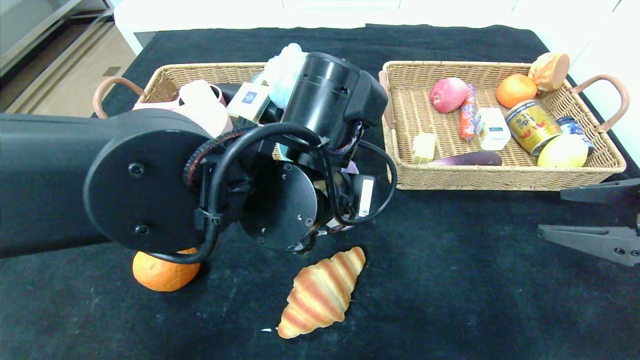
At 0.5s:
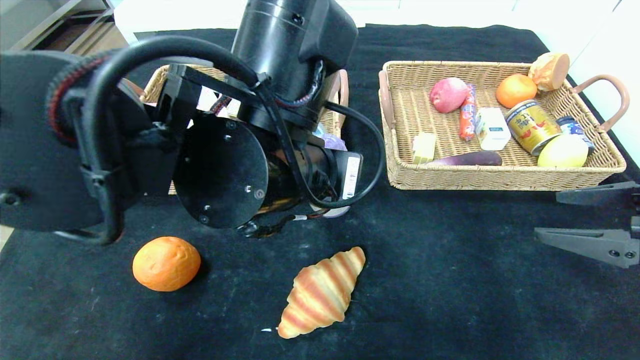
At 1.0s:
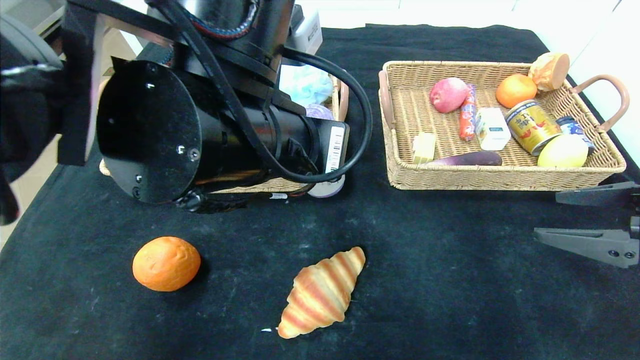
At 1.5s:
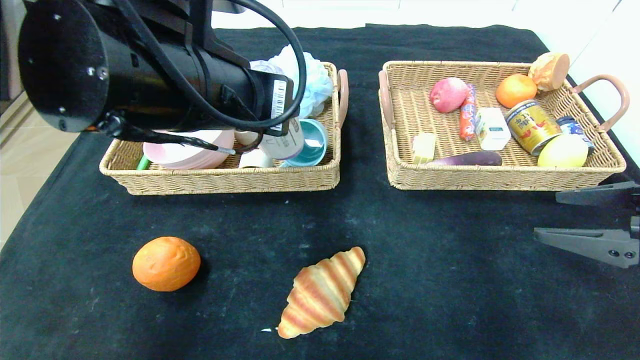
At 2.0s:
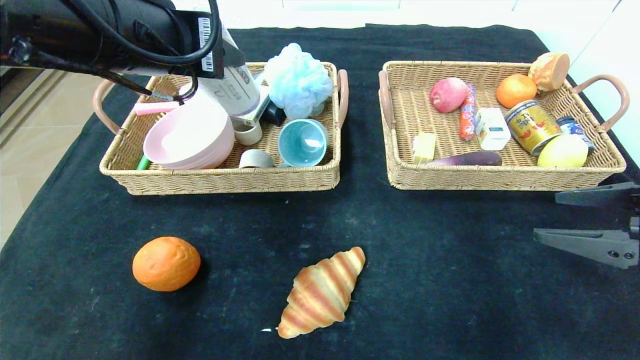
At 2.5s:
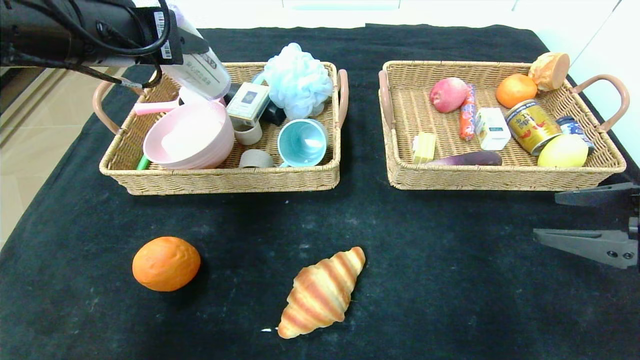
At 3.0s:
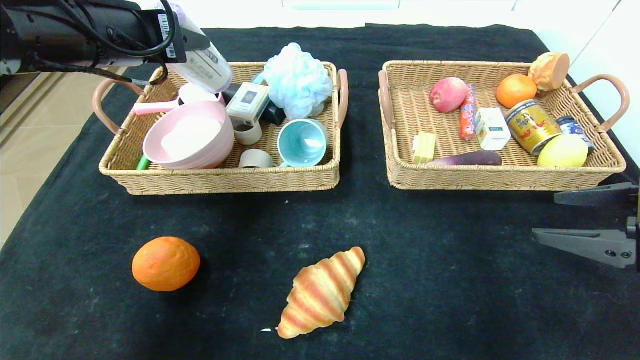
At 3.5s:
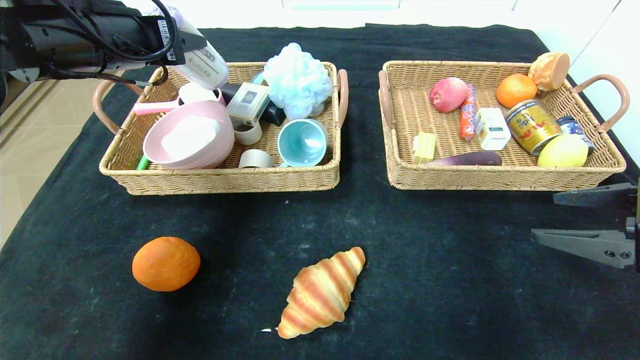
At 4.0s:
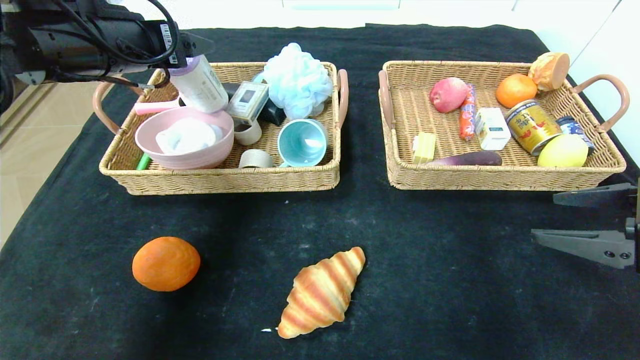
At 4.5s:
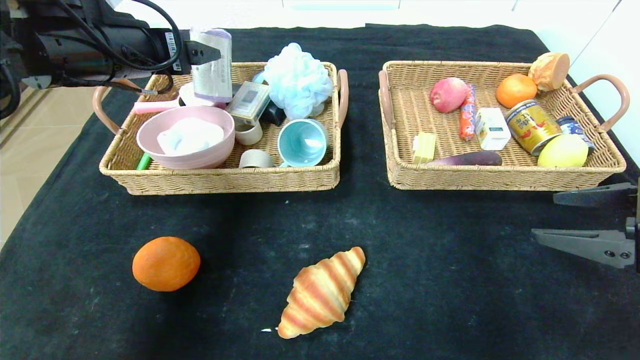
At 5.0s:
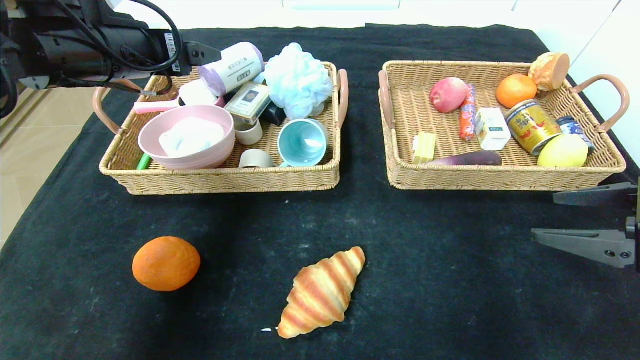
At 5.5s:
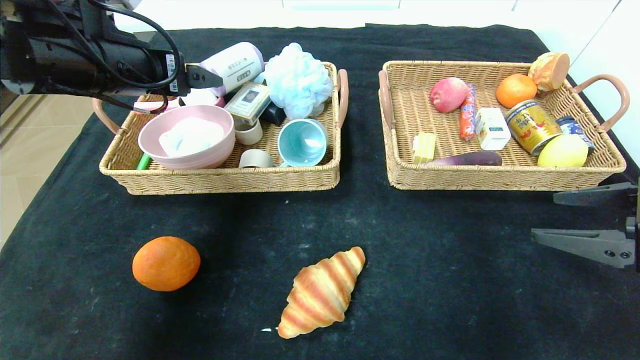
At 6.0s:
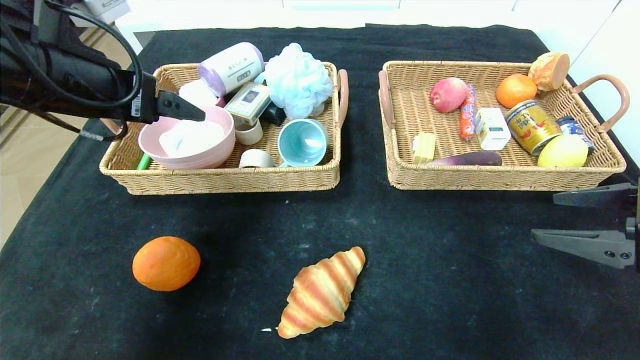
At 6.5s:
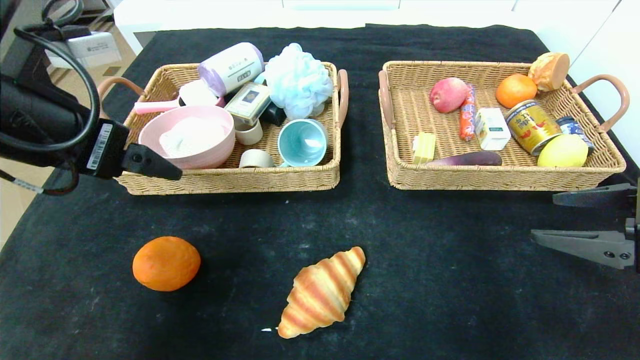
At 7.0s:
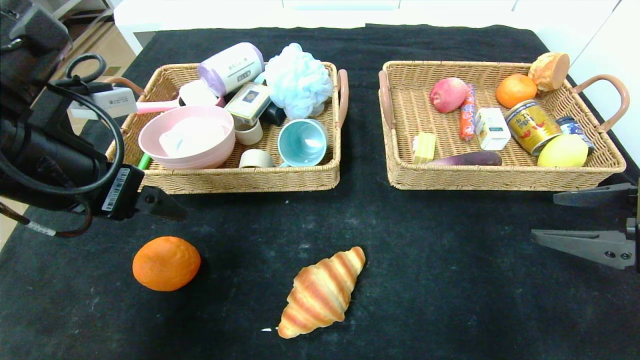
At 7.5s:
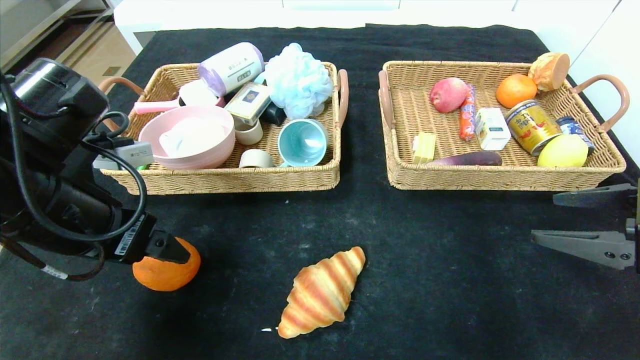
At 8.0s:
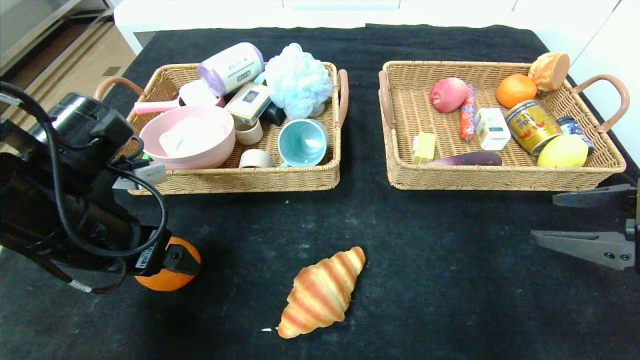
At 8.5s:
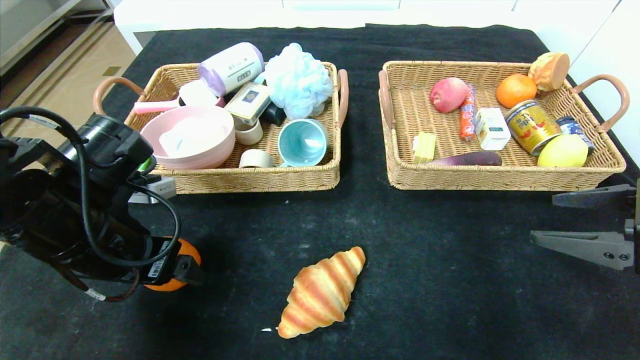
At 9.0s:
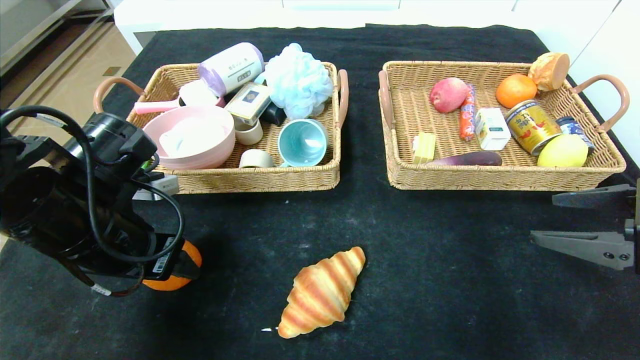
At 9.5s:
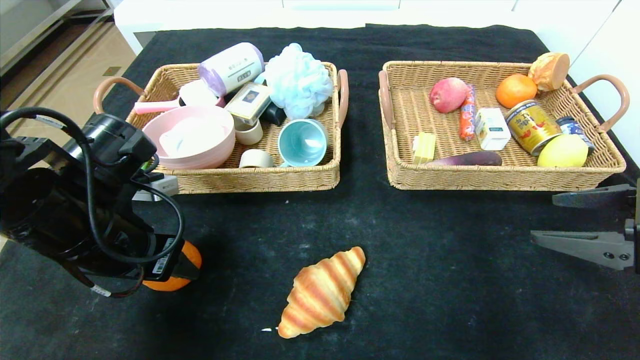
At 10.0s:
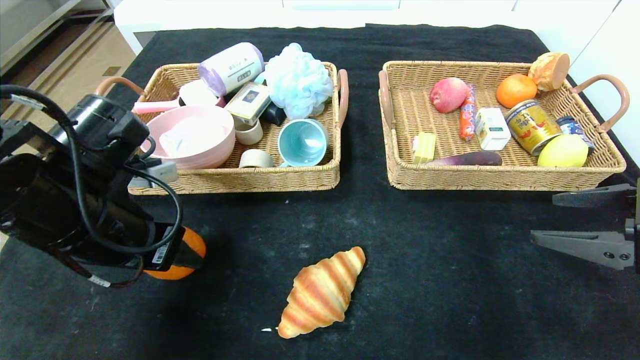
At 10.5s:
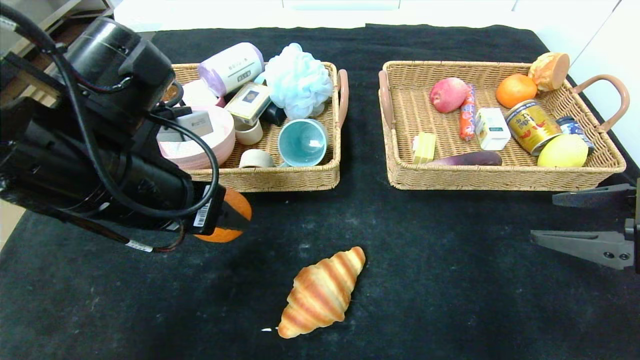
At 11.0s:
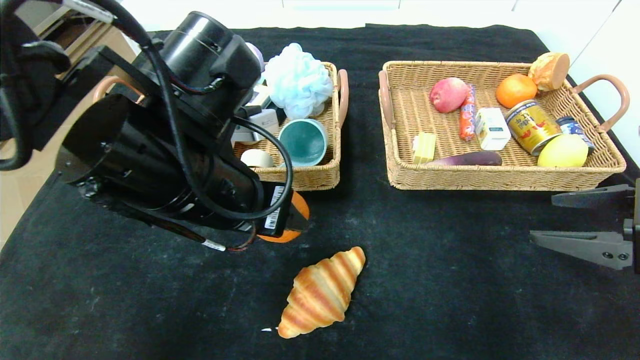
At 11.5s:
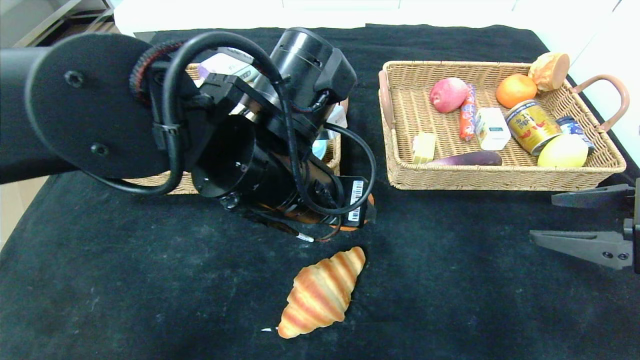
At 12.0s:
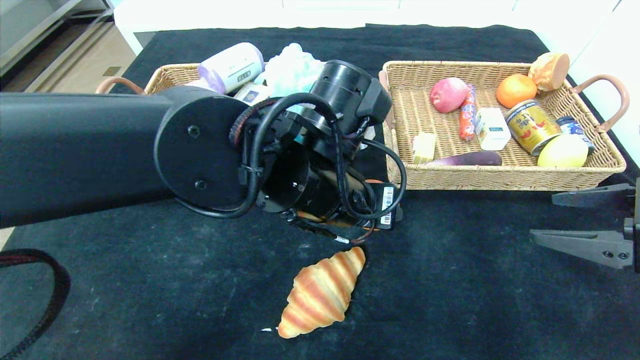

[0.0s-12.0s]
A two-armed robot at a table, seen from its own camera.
Step, 0.0s to 4.0s: Grasp the purple garbage bag and put it in the left basket.
0.0s to 2.0s: The left gripper heads to the left and upward, covering approximately 20 cm.
2.0s to 4.0s: The left gripper moves forward and to the left, roughly 10 cm.
4.0s to 6.0s: The left gripper is displaced backward by about 5 cm.
6.0s to 8.0s: The left gripper moves downward, roughly 10 cm.
8.0s to 10.0s: The left gripper closes its fingers.
10.0s to 12.0s: The left gripper goes some 20 cm to the right.

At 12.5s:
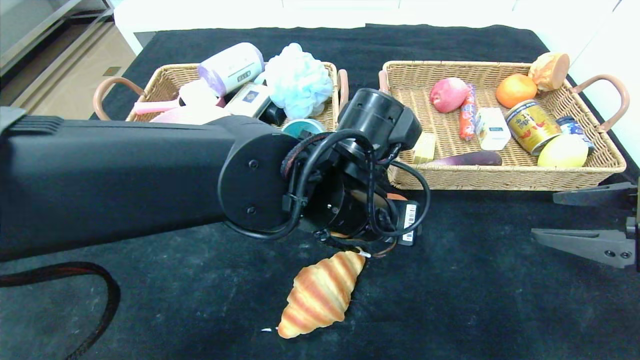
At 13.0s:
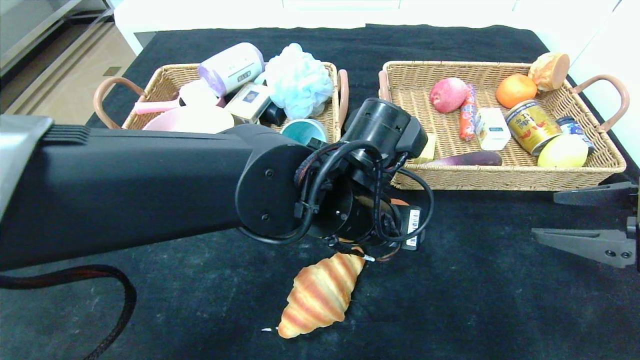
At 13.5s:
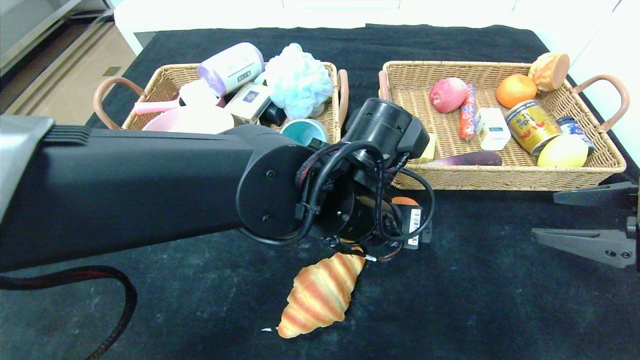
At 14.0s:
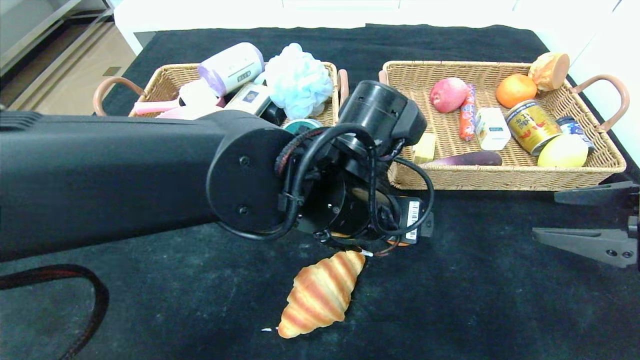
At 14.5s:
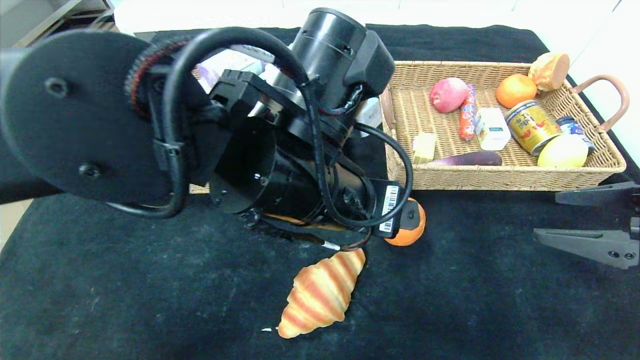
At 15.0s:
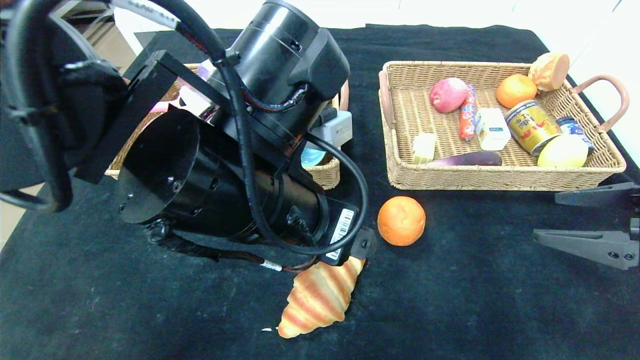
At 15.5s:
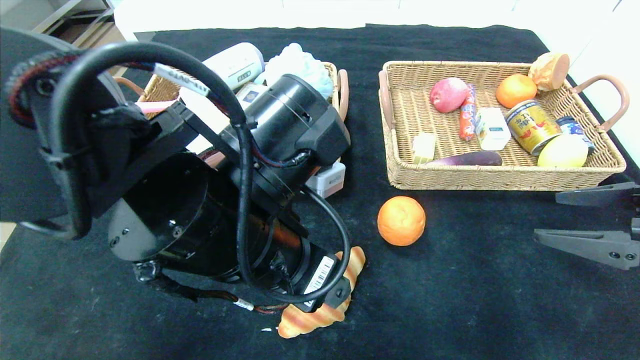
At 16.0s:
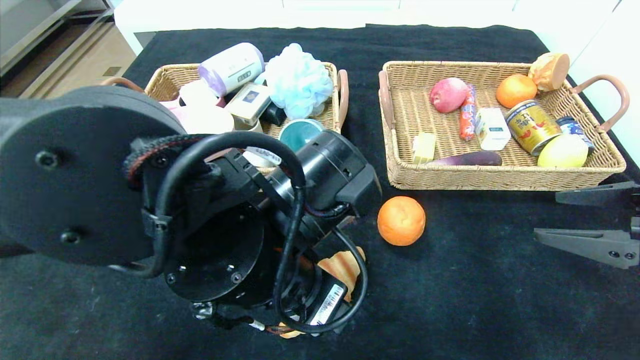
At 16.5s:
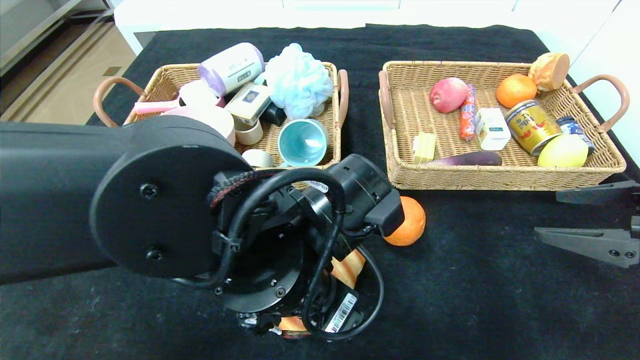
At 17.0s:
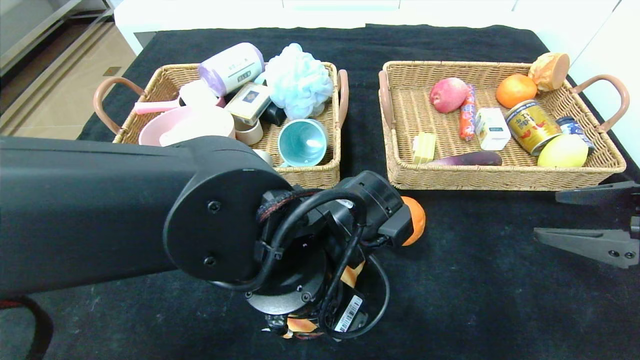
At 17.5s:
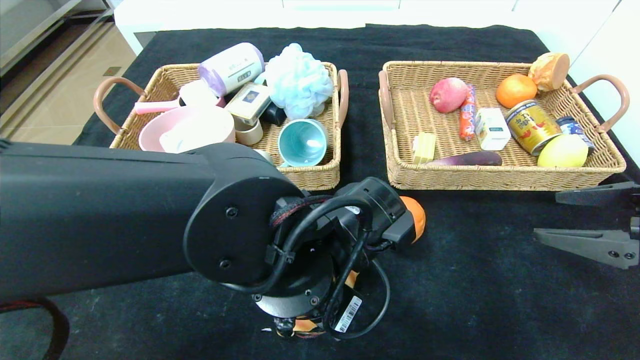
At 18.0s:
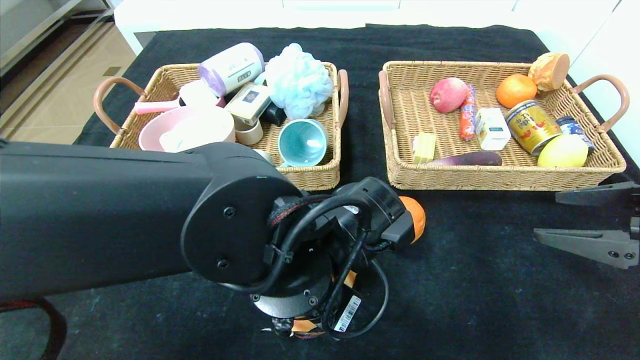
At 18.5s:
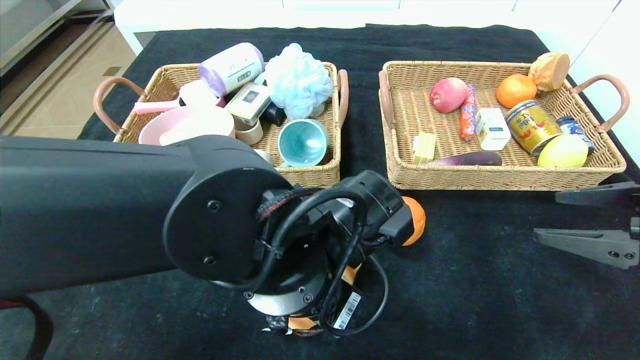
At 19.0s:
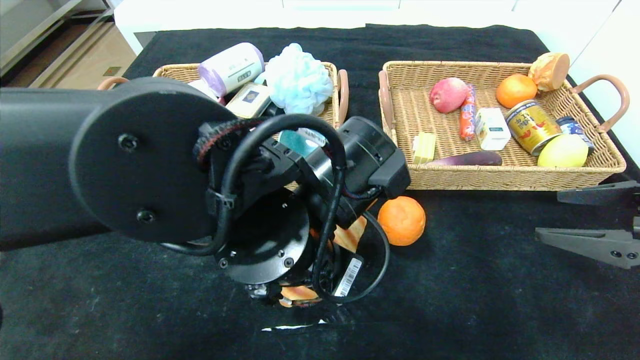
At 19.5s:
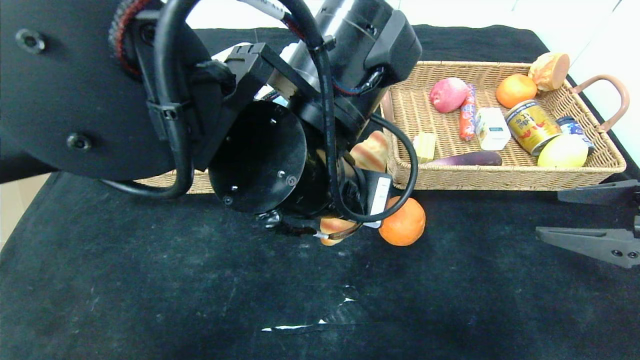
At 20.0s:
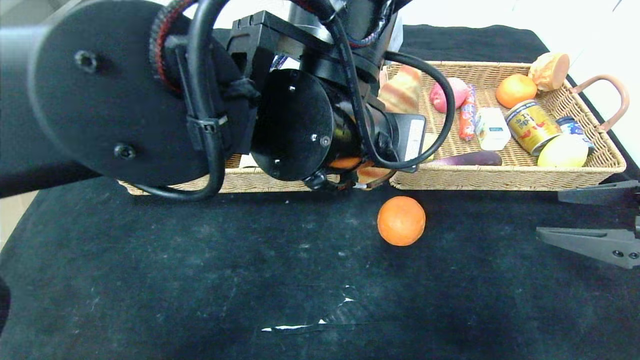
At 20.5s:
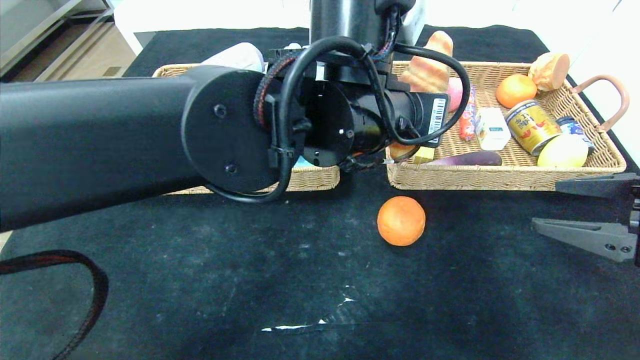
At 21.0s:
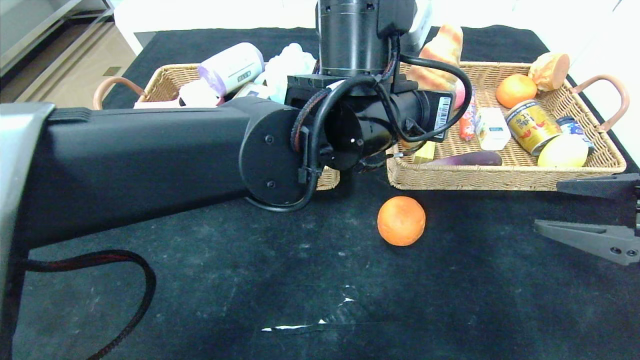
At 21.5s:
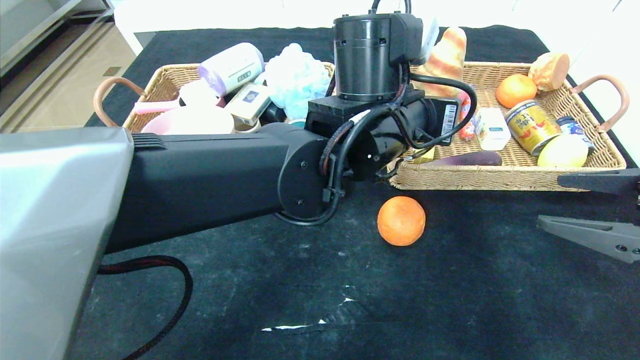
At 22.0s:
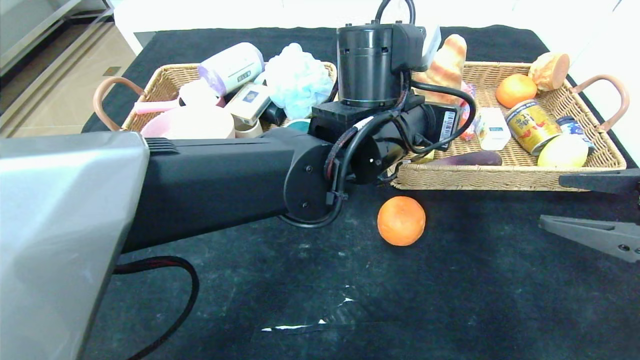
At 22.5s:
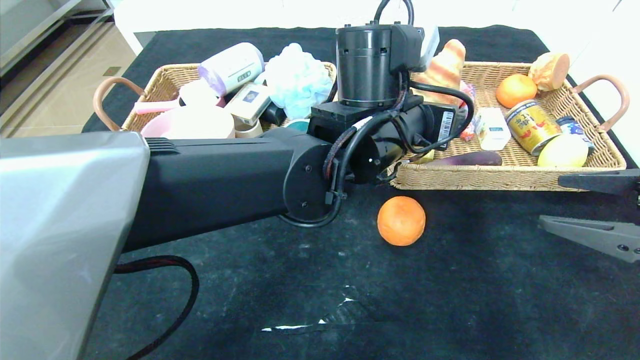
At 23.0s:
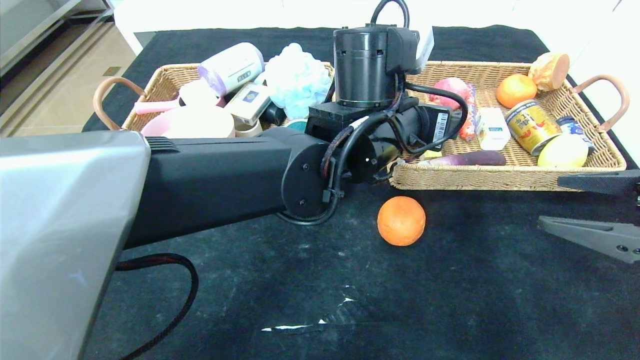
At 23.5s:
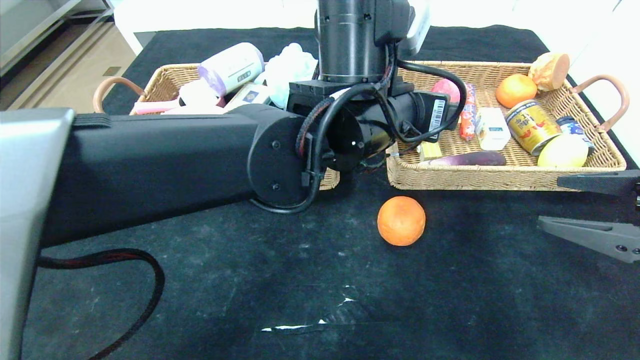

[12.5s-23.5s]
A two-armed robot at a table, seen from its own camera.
12.5s to 14.5s: The left gripper ends up about 5 cm from where it was, and opens up.
14.5s to 16.0s: The left gripper moves downward, some 5 cm.
16.0s to 18.0s: The left gripper closes.
18.0s to 20.0s: The left gripper travels upward by about 10 cm.
20.0s to 21.5s: The left gripper shifts some 5 cm forward.
21.5s to 23.5s: The left gripper opens its fingers.
